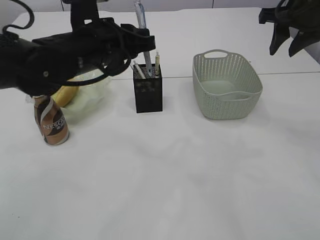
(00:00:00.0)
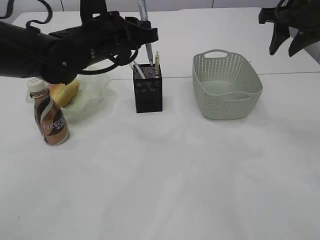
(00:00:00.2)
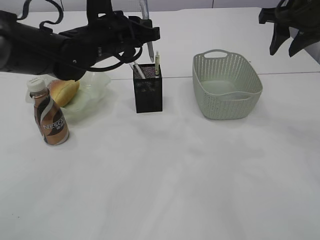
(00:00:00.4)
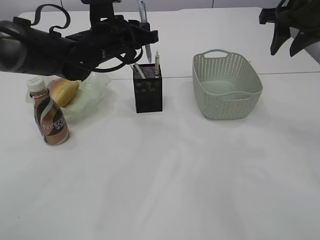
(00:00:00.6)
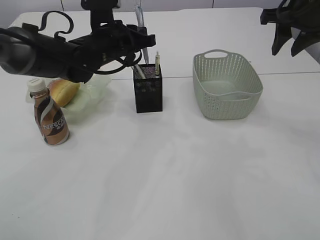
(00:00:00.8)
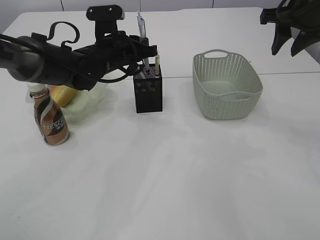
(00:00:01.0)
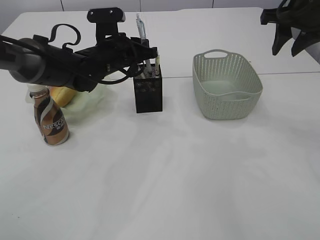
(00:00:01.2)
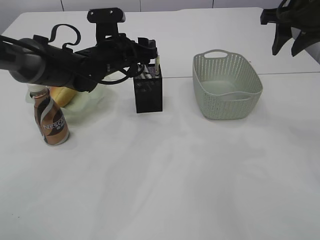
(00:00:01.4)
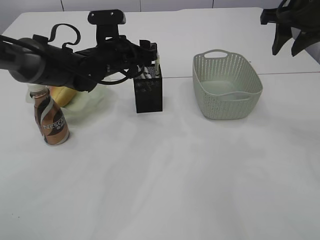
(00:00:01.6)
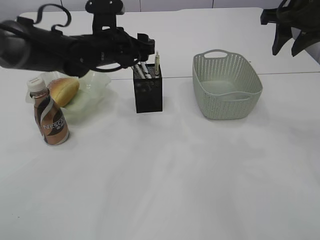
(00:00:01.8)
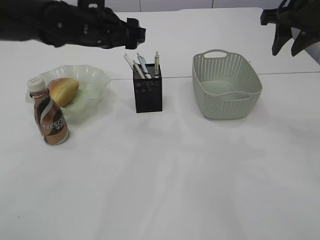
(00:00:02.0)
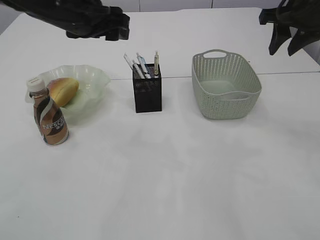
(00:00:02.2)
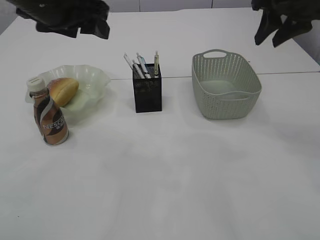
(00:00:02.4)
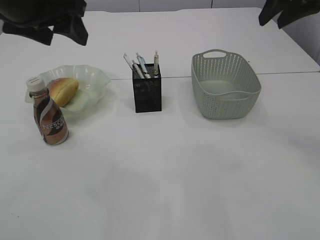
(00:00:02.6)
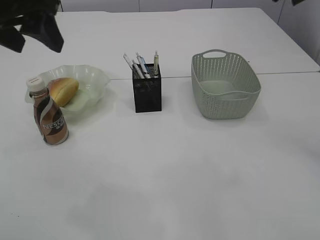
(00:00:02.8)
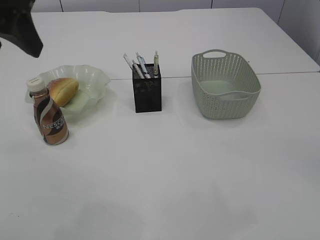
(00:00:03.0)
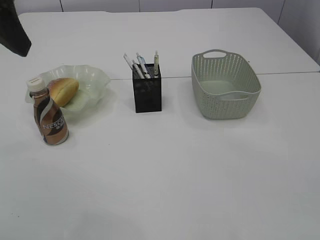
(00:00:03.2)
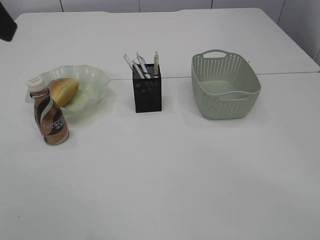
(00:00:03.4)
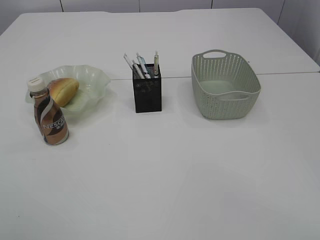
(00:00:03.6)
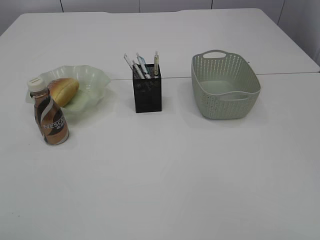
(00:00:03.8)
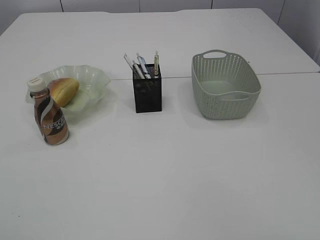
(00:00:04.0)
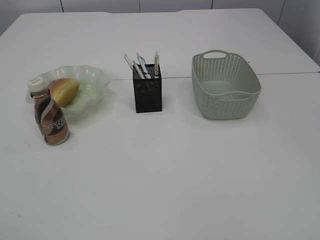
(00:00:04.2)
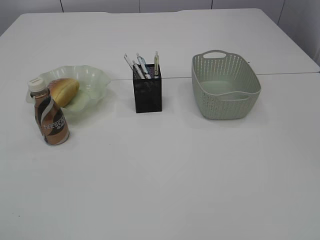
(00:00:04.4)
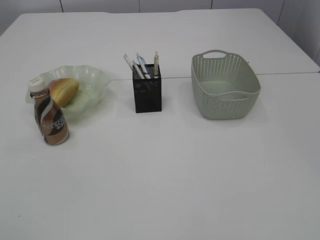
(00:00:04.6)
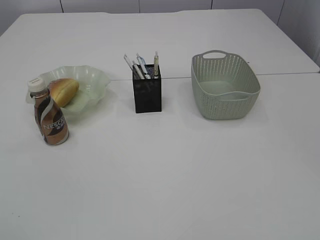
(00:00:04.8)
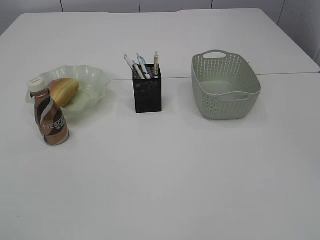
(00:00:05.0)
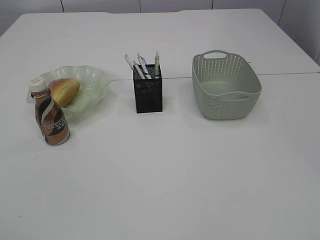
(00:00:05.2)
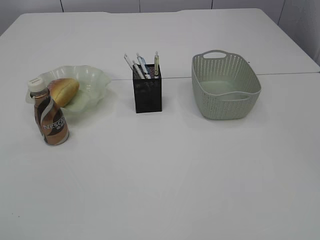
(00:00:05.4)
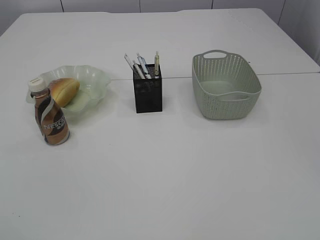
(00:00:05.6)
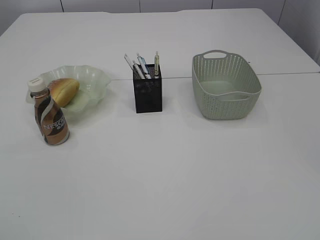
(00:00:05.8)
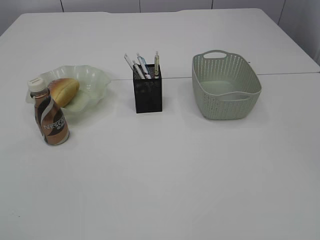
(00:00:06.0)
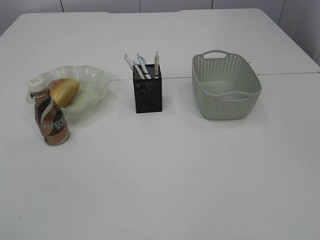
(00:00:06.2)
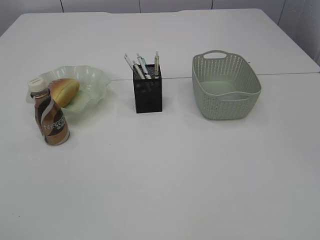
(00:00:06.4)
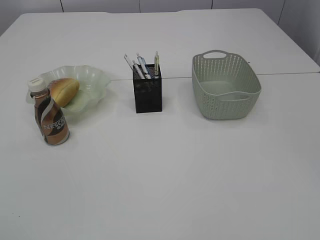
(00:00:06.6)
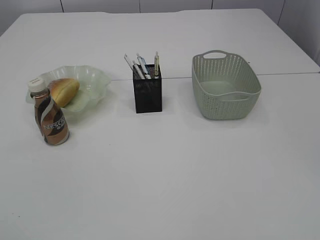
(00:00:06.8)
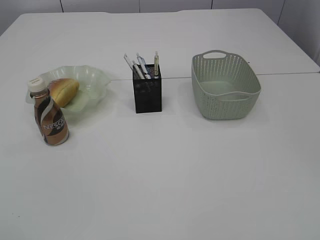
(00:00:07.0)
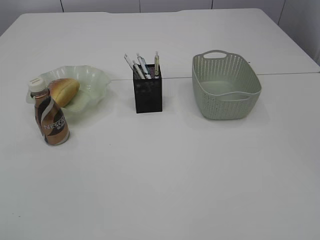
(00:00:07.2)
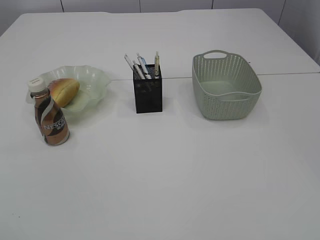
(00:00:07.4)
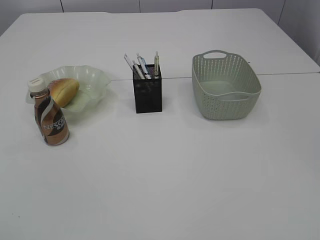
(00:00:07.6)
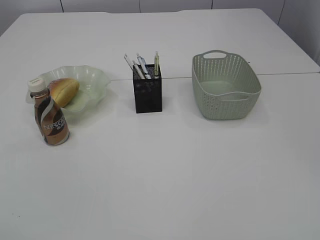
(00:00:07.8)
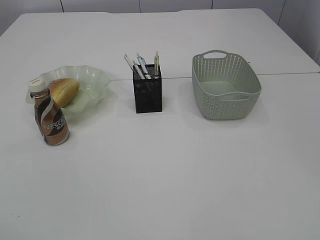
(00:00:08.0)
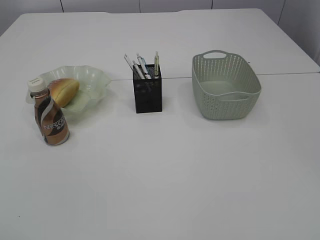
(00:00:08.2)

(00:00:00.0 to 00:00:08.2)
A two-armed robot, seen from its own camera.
Step, 00:00:00.0 - 00:00:02.2: Place the pen into the pen holder.
00:00:00.0 - 00:00:01.6: The left gripper travels forward and downward by roughly 15 cm, and opens up.
00:00:01.6 - 00:00:03.2: The left gripper goes roughly 30 cm upward, backward and to the left, while the right gripper travels backward and upward by approximately 20 cm.
00:00:03.2 - 00:00:05.0: The left gripper travels backward, downward and to the left by approximately 30 cm.
